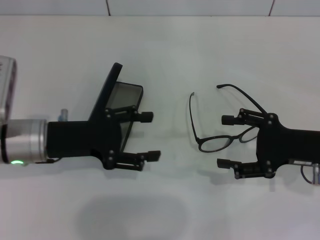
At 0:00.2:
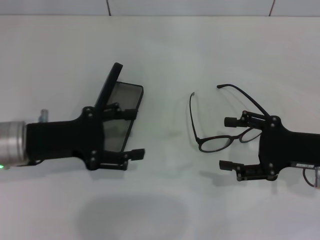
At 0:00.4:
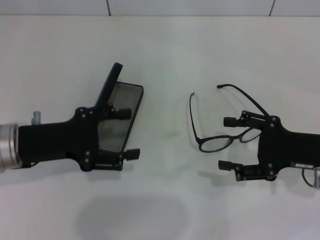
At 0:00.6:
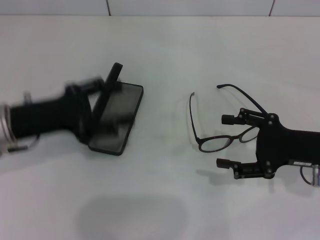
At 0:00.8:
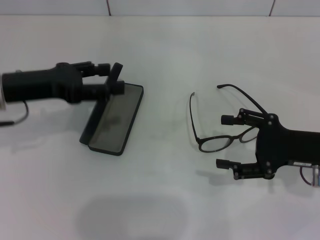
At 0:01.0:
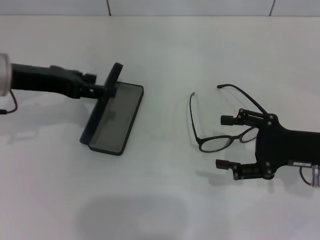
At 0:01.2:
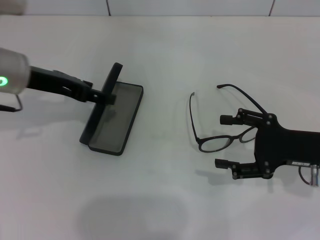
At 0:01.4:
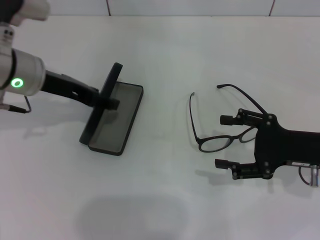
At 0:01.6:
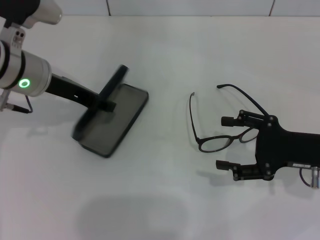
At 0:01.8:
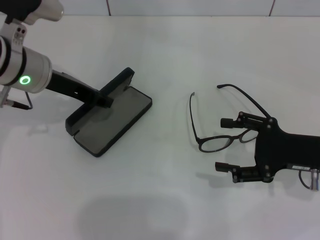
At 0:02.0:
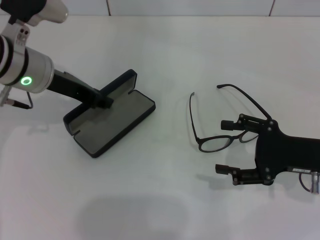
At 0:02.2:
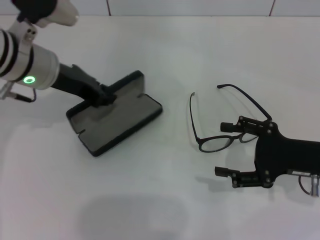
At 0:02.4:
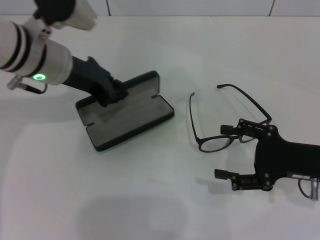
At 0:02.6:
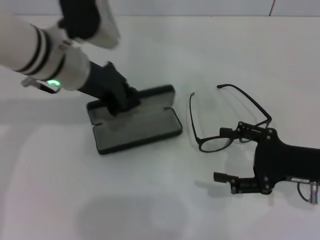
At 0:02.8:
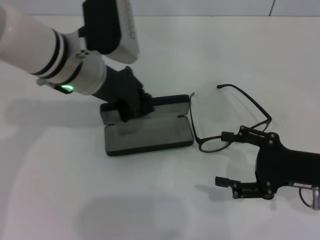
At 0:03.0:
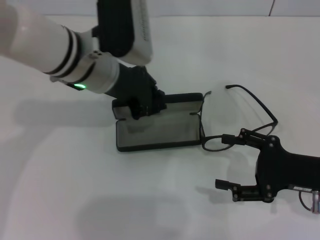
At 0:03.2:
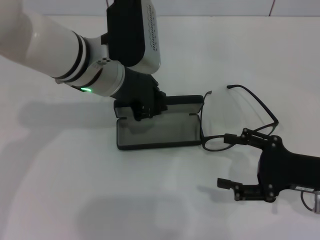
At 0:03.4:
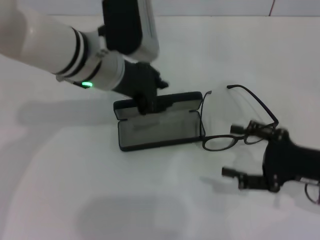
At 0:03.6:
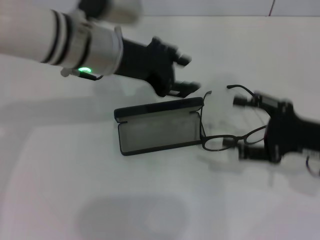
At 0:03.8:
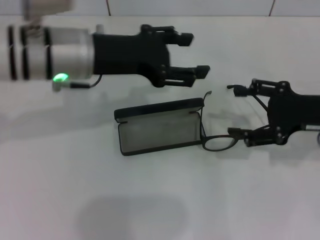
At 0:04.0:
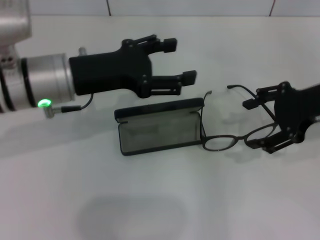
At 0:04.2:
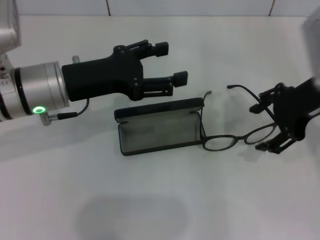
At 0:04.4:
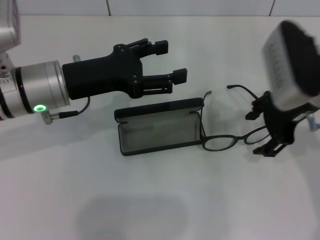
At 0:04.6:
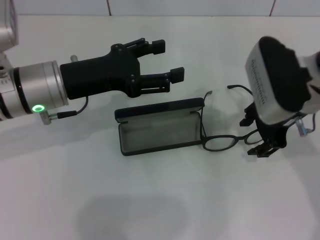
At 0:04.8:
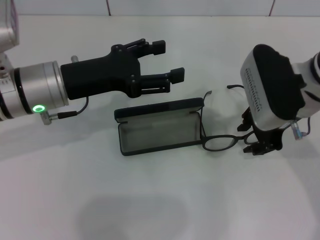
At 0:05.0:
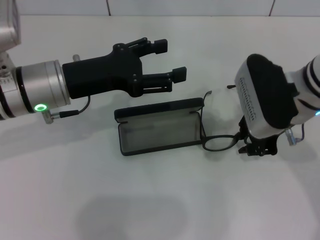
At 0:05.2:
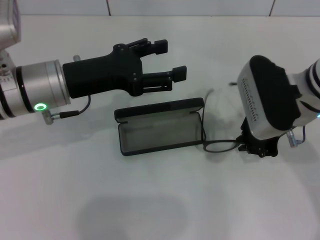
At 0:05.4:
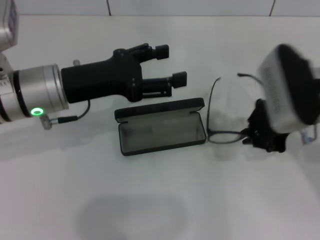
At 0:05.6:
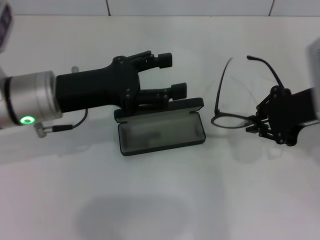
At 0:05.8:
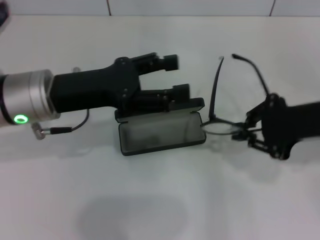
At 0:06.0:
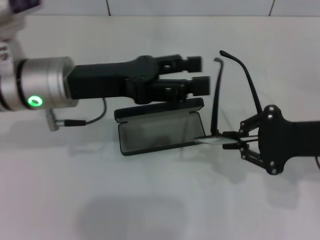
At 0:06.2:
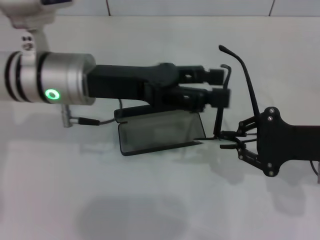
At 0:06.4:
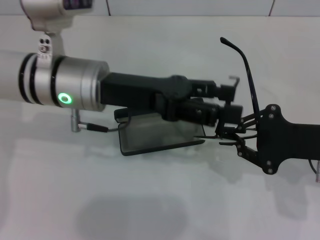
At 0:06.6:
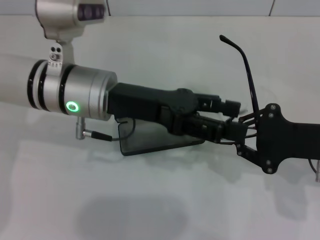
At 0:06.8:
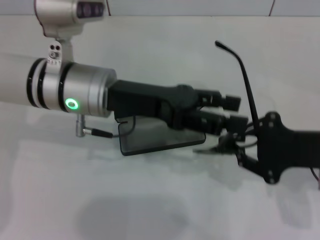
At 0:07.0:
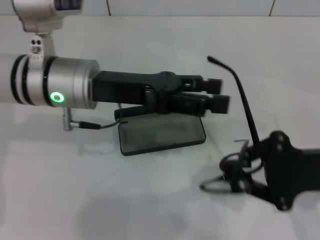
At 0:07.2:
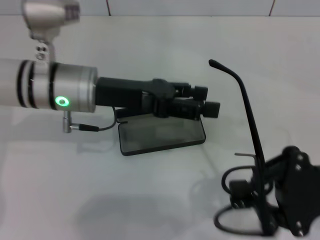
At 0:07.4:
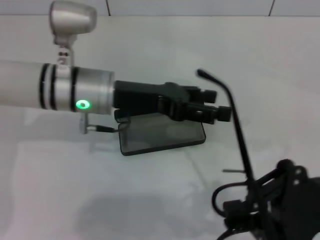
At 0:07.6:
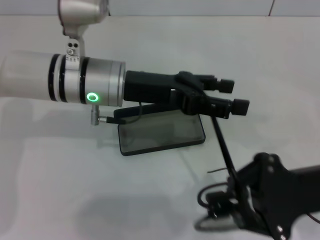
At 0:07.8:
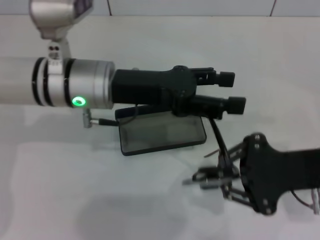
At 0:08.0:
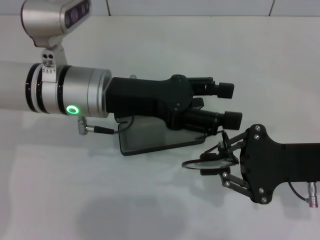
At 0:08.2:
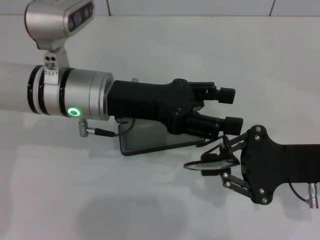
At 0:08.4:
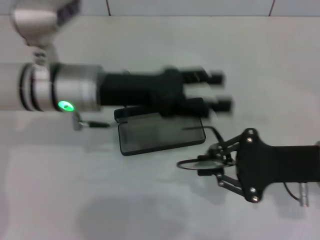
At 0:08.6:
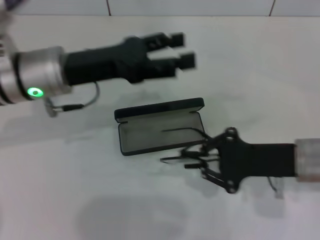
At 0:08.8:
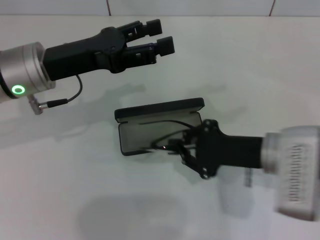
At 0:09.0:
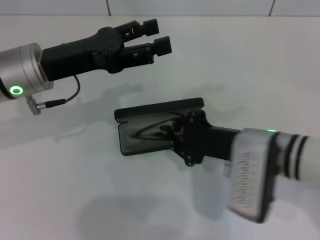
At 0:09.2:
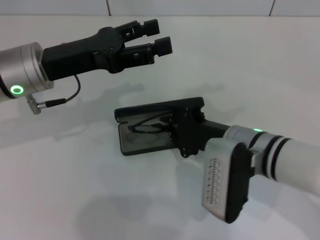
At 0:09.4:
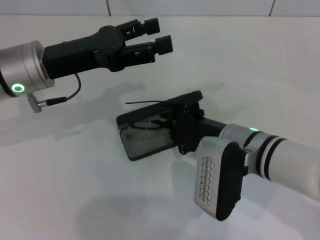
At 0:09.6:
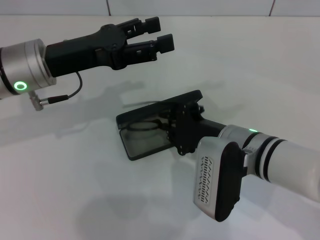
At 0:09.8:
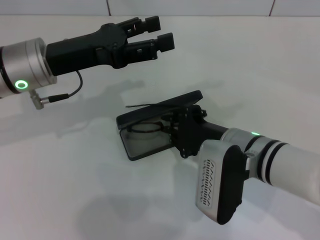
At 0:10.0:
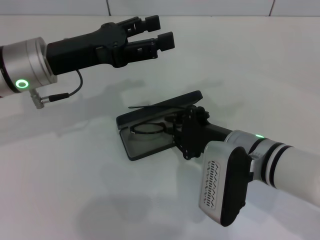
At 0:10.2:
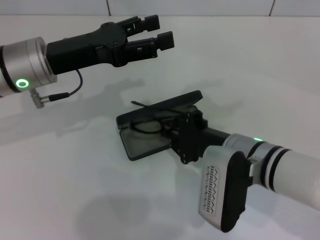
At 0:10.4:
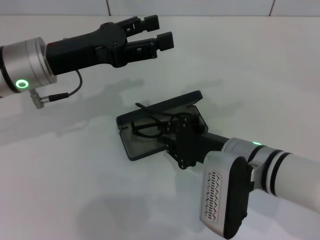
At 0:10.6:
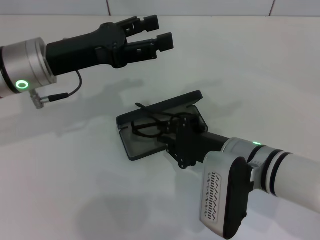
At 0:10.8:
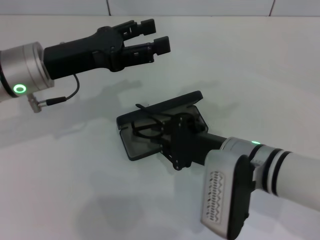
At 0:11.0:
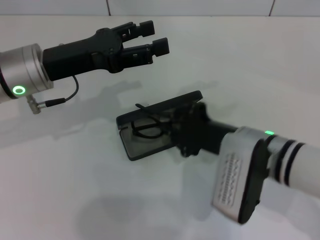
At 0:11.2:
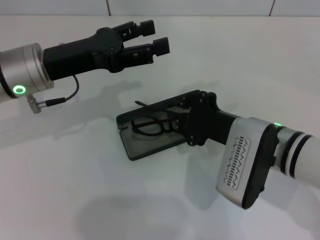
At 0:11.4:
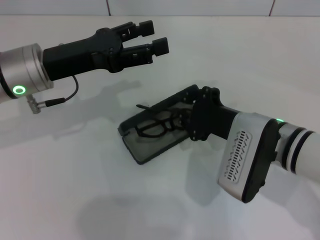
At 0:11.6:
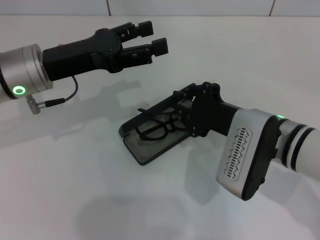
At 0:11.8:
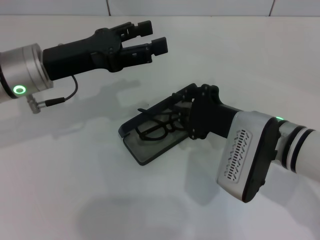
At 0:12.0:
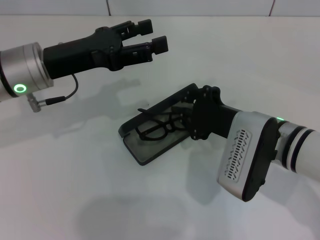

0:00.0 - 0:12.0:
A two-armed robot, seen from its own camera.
Step, 0:00.0 - 0:01.6: Grab the glasses case with your left hand.
Step, 0:01.8 - 0:03.2: Place the glasses case in the center of the table with your left hand.
Step, 0:03.6 - 0:05.0: Grab the eyeglass frame with your right hand.
Step, 0:05.2 - 0:08.0: Fold the frame with your left hand.
0:00.0 - 0:01.6: The left gripper travels forward and upward by approximately 10 cm.
0:01.6 - 0:03.0: The left gripper moves to the right, about 10 cm, and closes its fingers.
0:03.0 - 0:04.4: The left gripper is displaced to the left by approximately 5 cm, and opens. The right gripper heads upward, forward and to the left, covering some 20 cm.
0:04.4 - 0:06.0: The right gripper goes about 10 cm backward and to the right, and closes its fingers.
0:06.0 - 0:07.6: The left gripper goes approximately 5 cm to the right.
0:07.6 - 0:09.0: The two grippers go about 10 cm to the left.
0:09.0 - 0:12.0: There are only small adjustments of the grippers.

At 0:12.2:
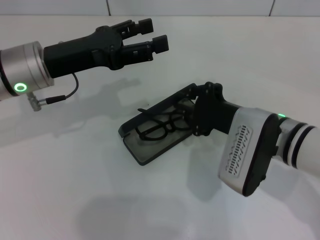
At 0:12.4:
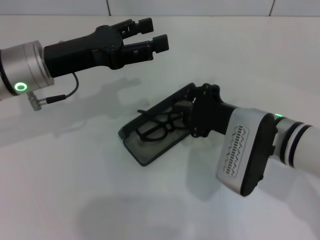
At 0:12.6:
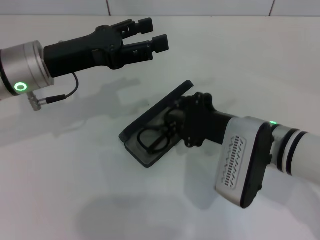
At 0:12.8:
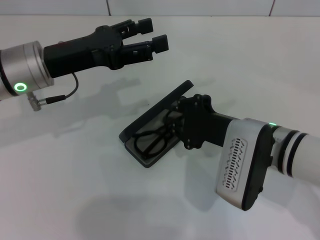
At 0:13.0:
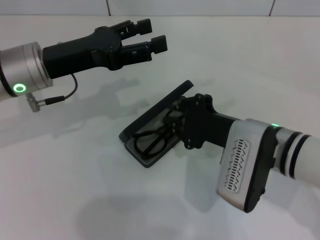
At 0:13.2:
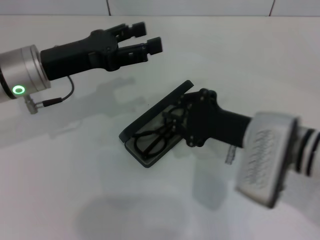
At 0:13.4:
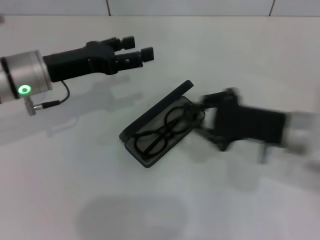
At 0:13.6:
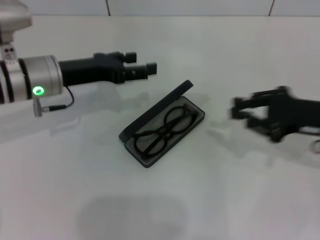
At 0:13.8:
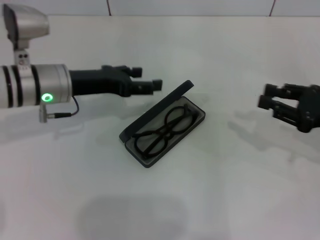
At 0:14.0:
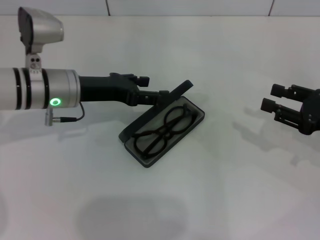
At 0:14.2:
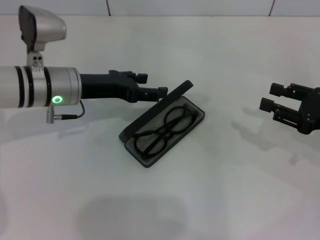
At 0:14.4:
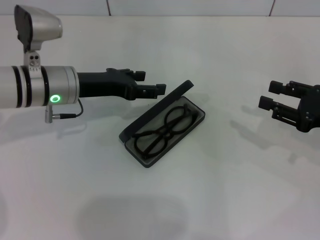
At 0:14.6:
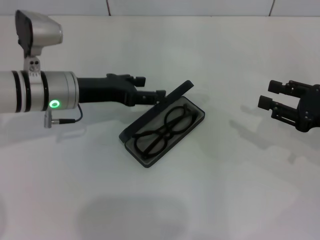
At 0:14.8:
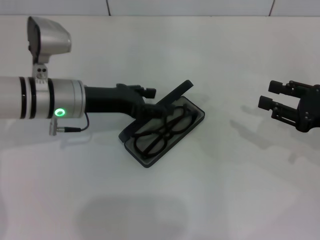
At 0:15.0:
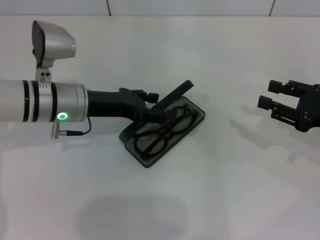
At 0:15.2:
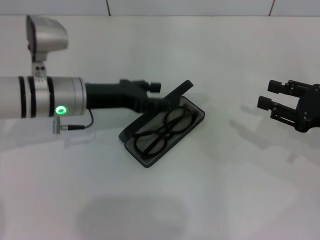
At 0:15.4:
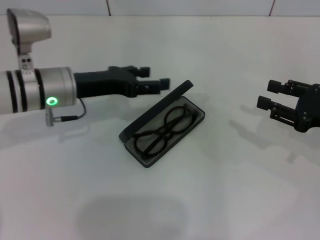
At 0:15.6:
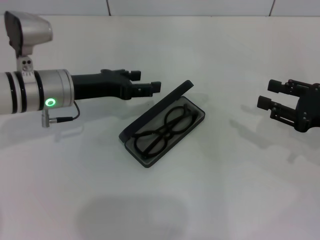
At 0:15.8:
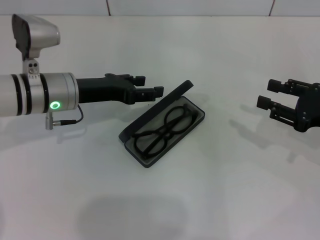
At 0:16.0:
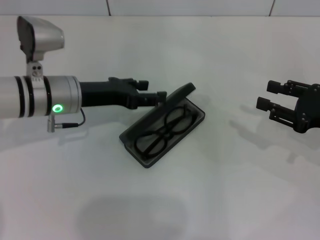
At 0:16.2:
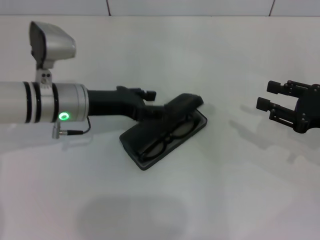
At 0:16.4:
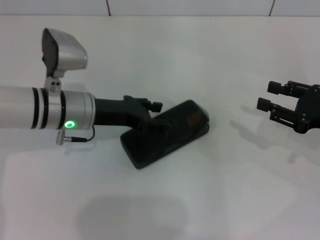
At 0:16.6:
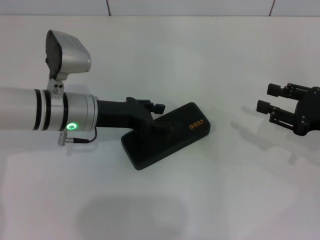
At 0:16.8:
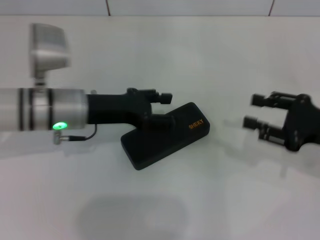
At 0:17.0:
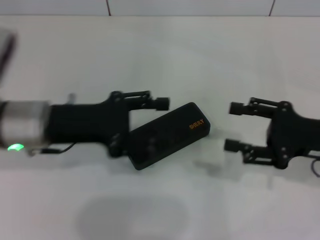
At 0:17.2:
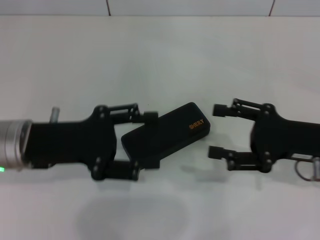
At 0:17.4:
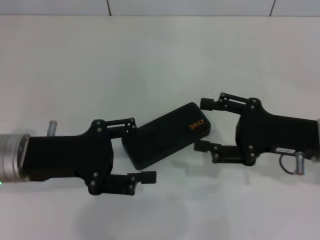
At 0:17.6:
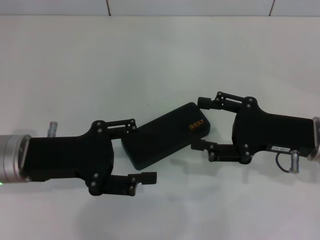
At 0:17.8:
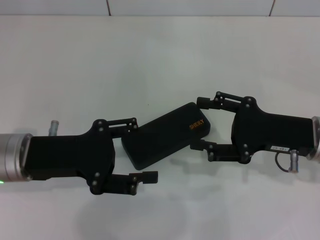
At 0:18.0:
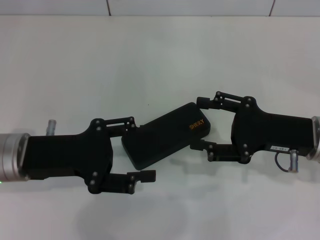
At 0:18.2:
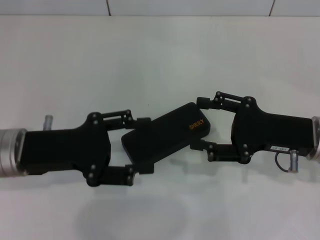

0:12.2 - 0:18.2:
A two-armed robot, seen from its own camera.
Step, 0:12.8 - 0:16.4: Close the glasses case with your left hand.
0:12.2 - 0:13.8: The right gripper heads to the right, covering approximately 15 cm.
0:13.8 - 0:15.2: The right gripper opens up.
0:15.2 - 0:16.6: The grippers make only small movements.
0:16.6 - 0:18.2: The right gripper is displaced to the left by roughly 10 cm, while the left gripper goes approximately 10 cm backward and to the left.
